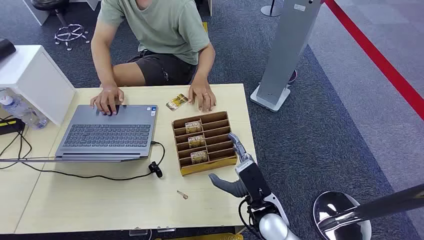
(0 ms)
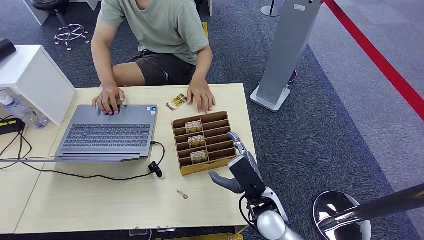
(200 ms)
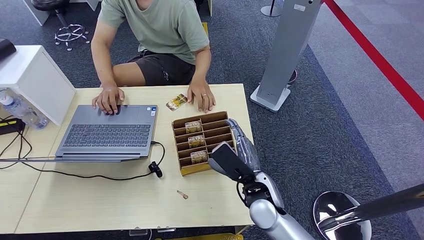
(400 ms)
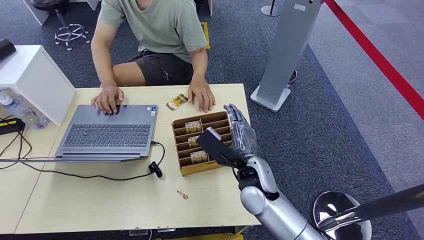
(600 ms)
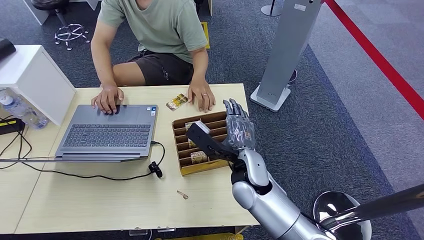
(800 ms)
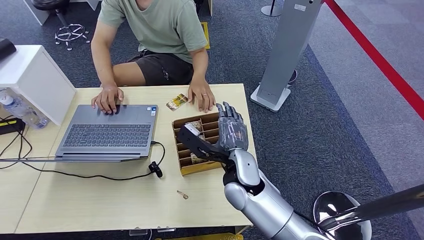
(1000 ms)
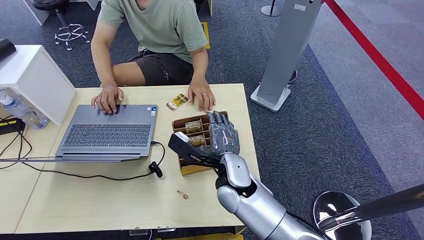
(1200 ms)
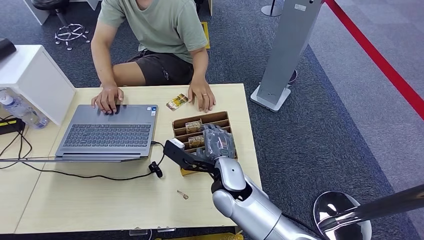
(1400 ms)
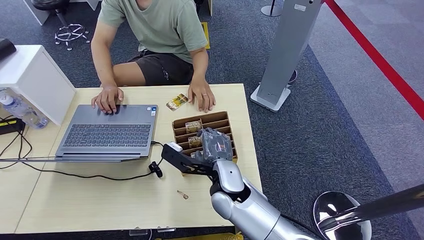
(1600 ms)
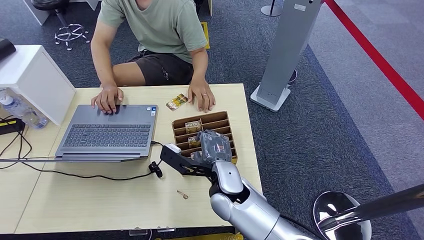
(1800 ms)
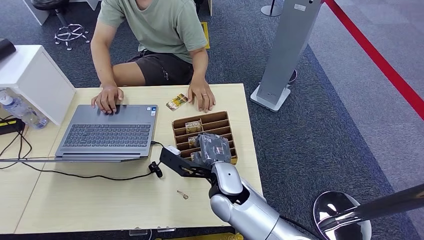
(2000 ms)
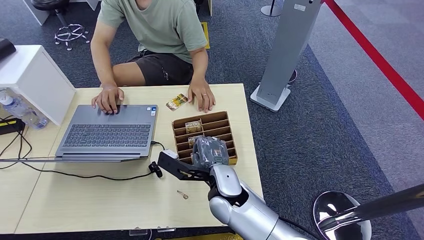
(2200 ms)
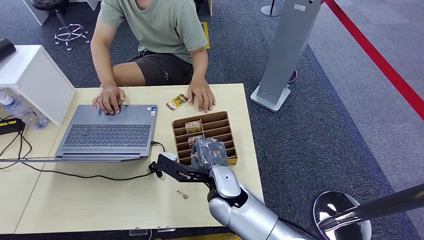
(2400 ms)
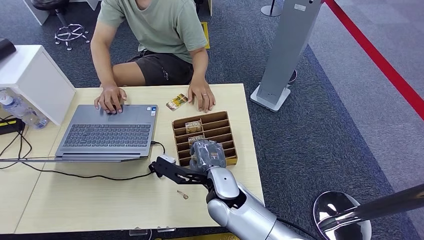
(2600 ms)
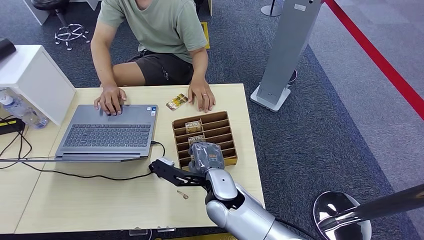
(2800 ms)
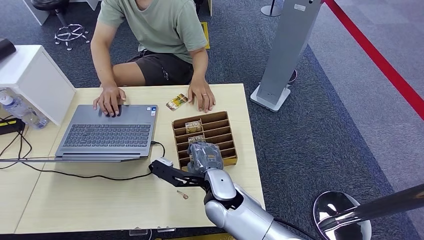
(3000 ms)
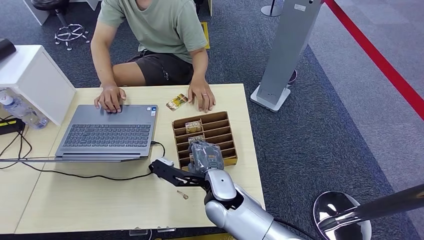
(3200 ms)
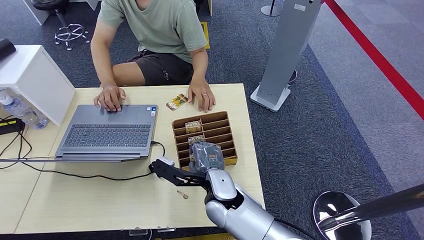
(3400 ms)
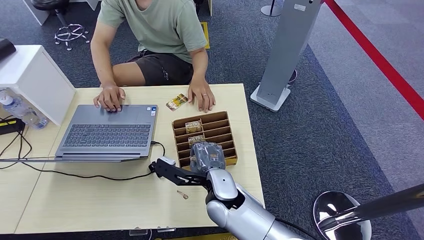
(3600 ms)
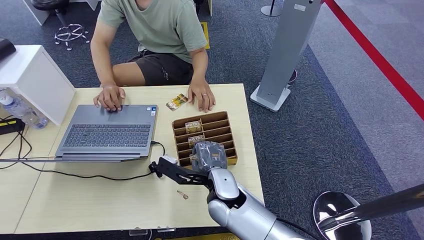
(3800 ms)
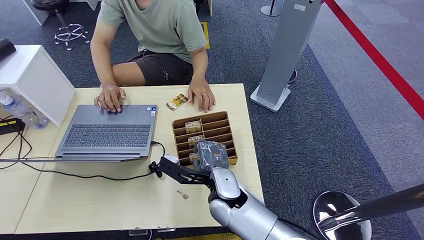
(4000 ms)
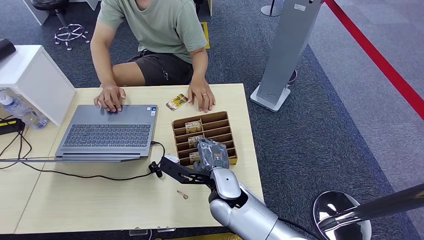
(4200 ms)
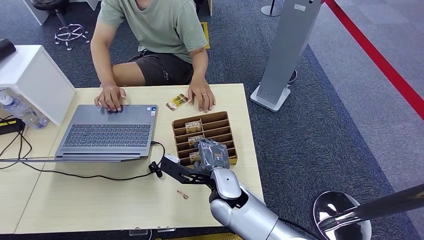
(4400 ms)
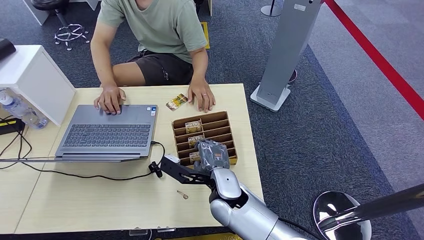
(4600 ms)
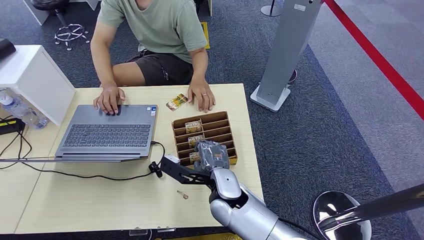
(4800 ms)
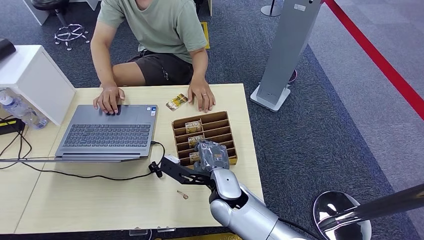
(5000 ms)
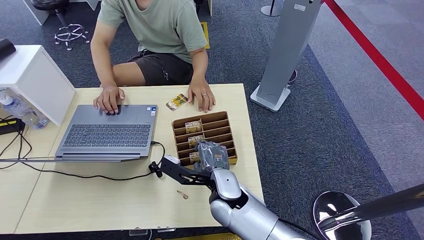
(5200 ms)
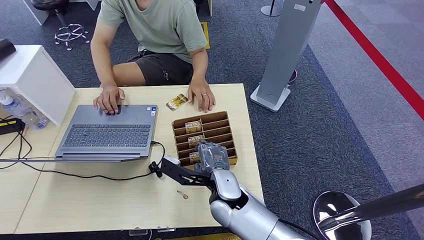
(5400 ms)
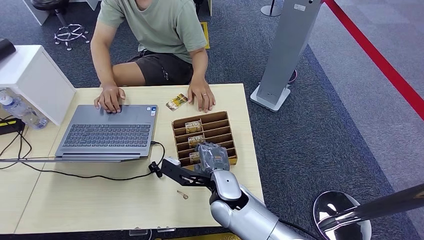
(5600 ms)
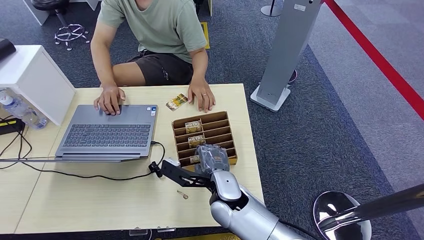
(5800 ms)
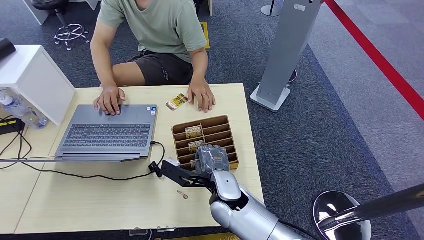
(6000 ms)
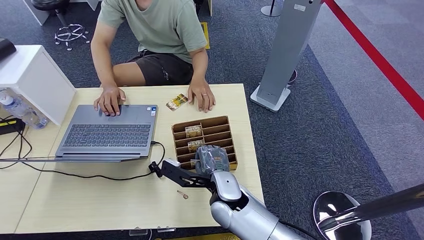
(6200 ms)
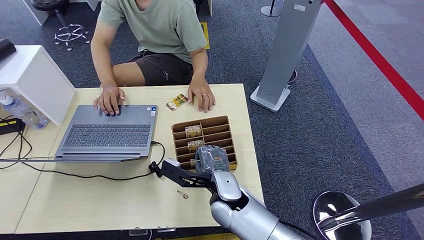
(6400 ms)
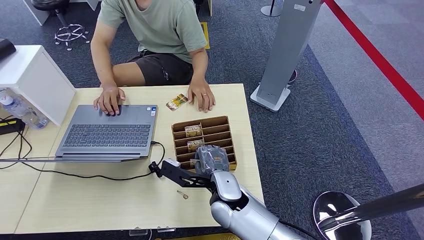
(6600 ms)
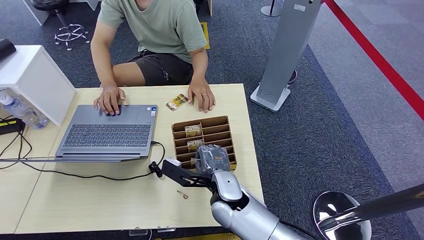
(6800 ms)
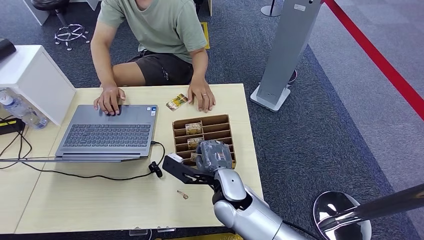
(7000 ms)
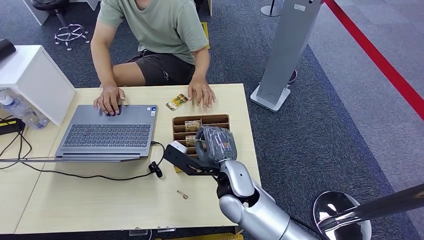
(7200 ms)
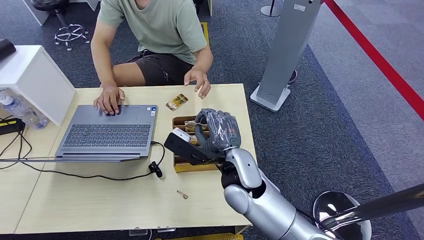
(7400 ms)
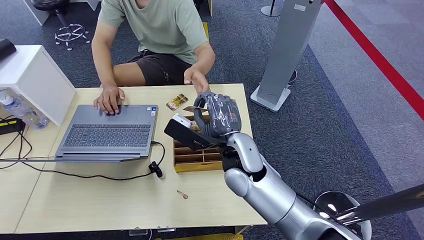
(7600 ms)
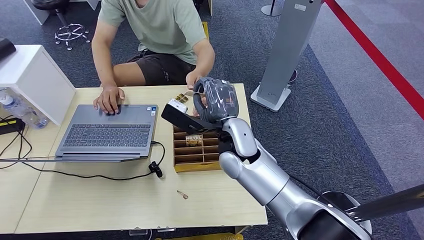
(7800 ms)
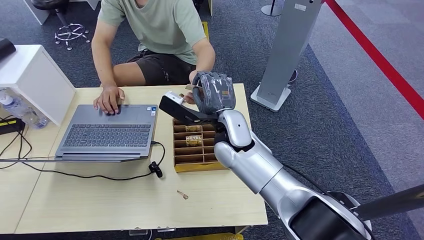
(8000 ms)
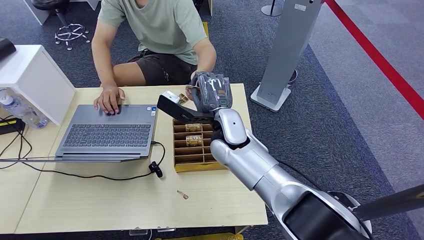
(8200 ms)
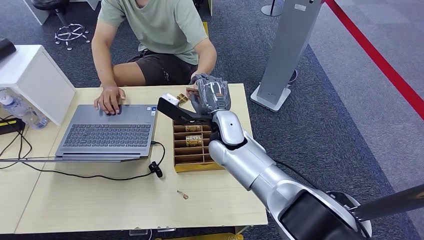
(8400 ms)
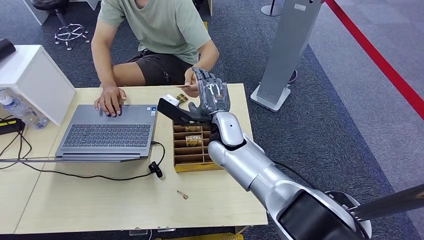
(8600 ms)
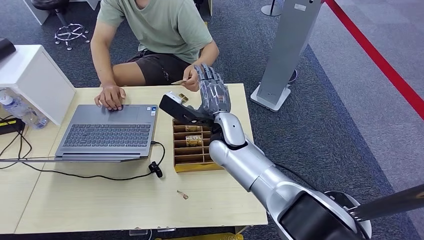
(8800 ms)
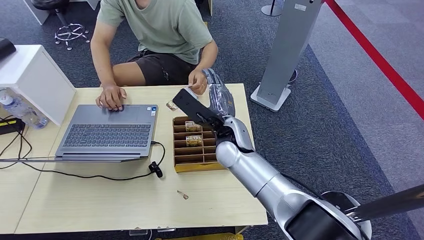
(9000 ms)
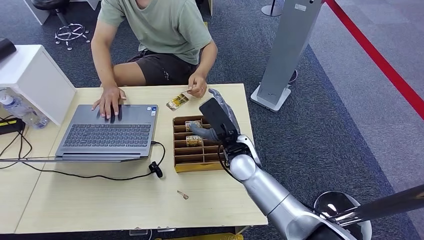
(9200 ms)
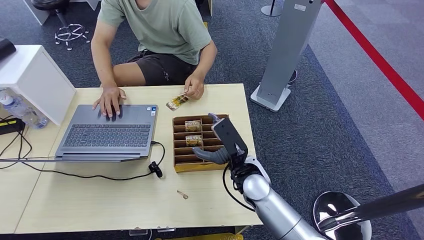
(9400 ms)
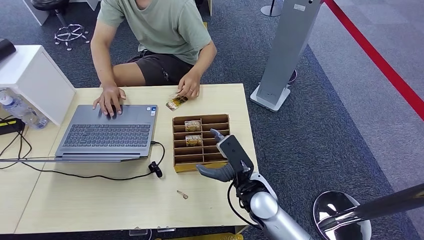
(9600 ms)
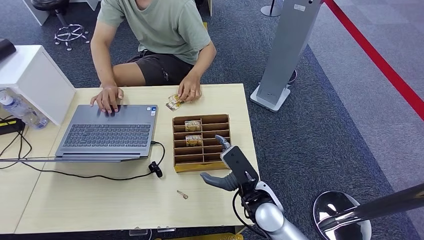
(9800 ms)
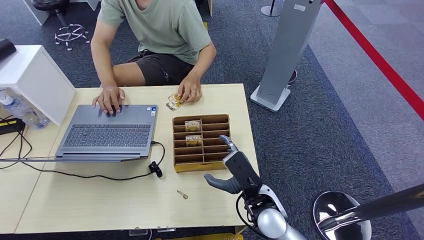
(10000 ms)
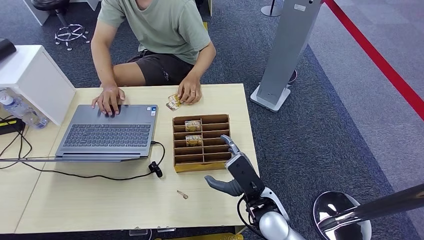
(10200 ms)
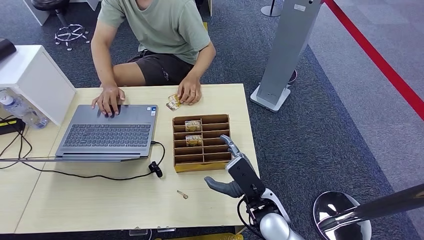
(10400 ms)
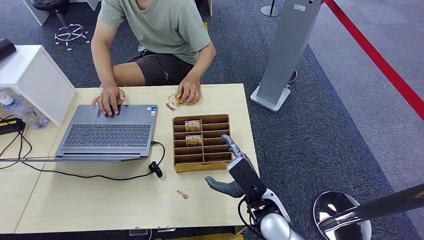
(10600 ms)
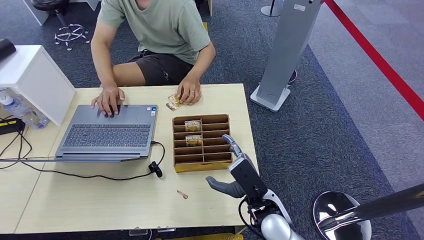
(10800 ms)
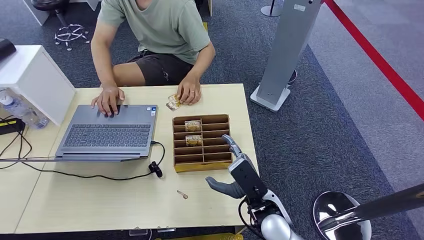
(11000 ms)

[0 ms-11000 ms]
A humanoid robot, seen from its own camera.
Step, 0 ms to 7400 ms: Pick up the room card from the card holder.
Step, 7600 ms to 10800 ms: Hand the room card to the target.
1600 ms to 3200 ms: The hands make only small movements.
3200 ms to 4800 ms: Neither hand changes place.
4800 ms to 6200 ms: Neither hand changes place.
6200 ms to 7800 ms: The right hand shifts about 15 cm upward and forward.
7800 ms to 9400 ms: The right hand is displaced downward by some 10 cm.
9400 ms to 11000 ms: The right hand goes roughly 10 cm backward.
